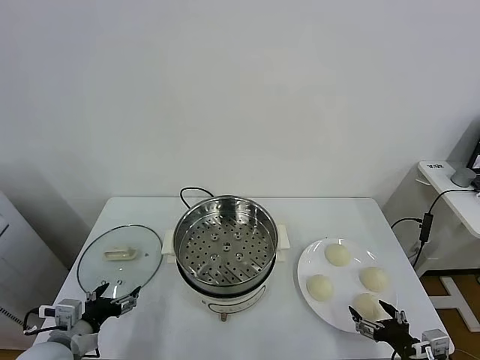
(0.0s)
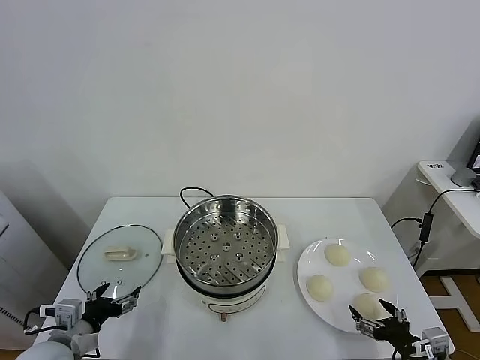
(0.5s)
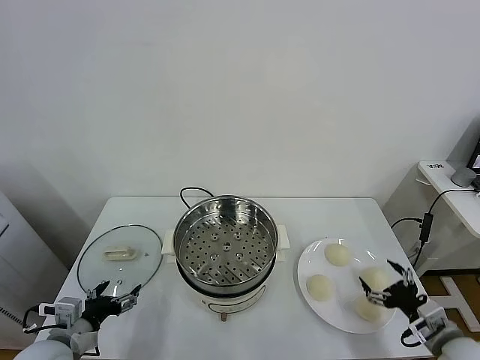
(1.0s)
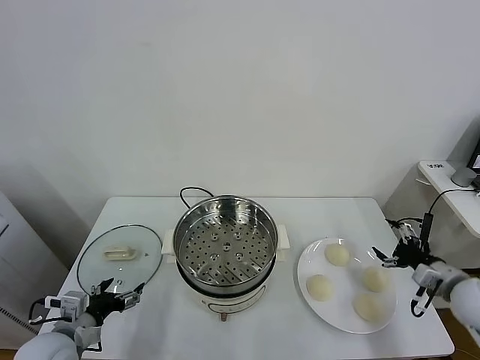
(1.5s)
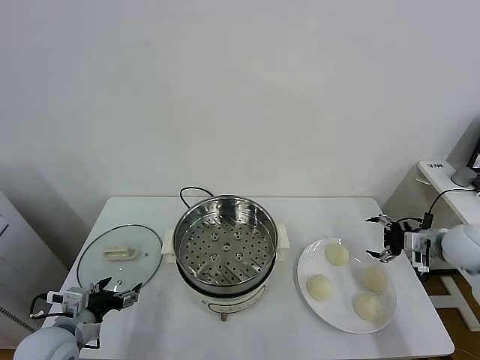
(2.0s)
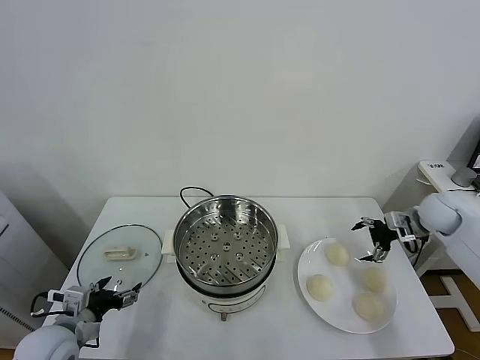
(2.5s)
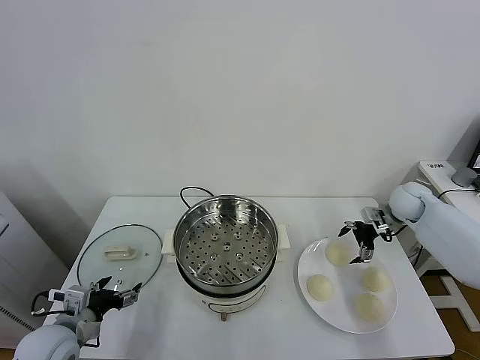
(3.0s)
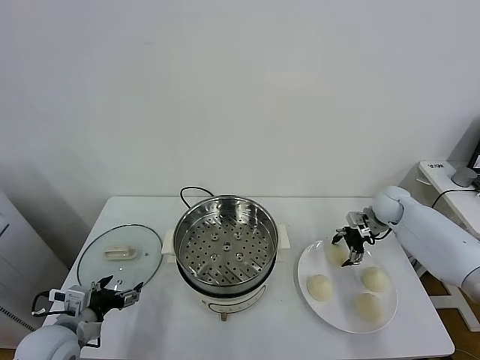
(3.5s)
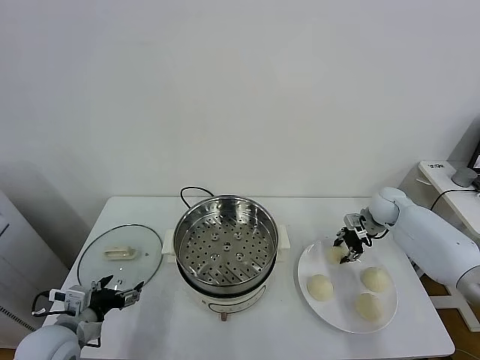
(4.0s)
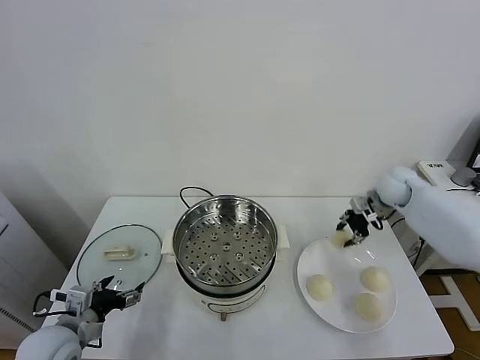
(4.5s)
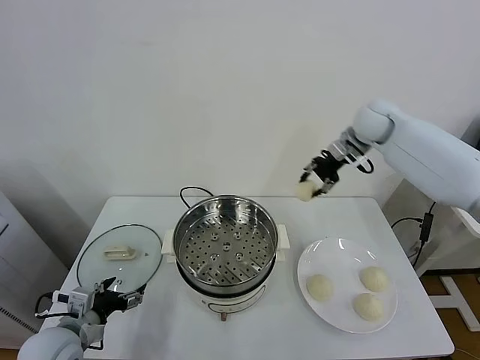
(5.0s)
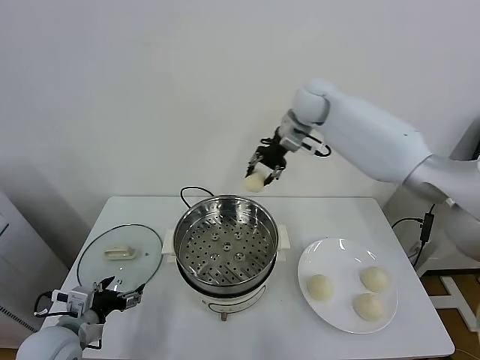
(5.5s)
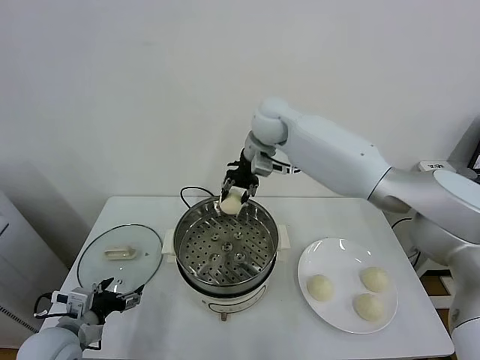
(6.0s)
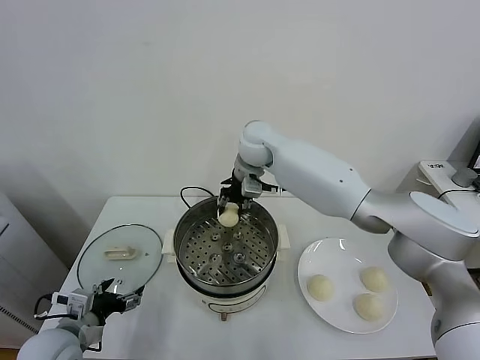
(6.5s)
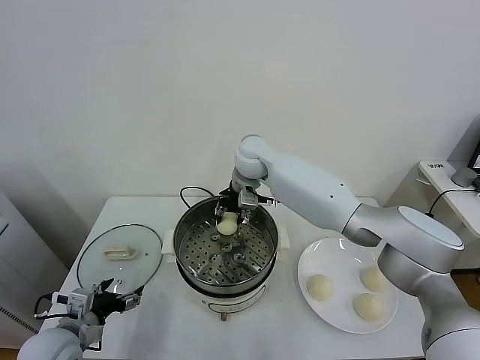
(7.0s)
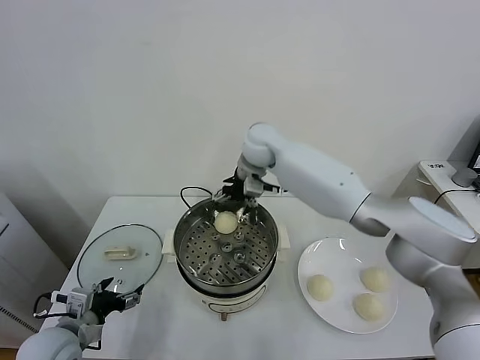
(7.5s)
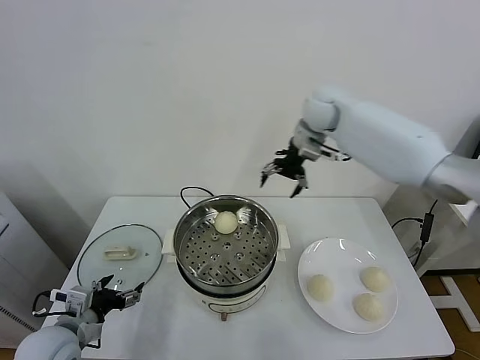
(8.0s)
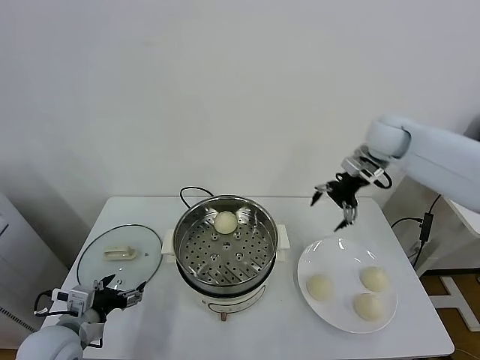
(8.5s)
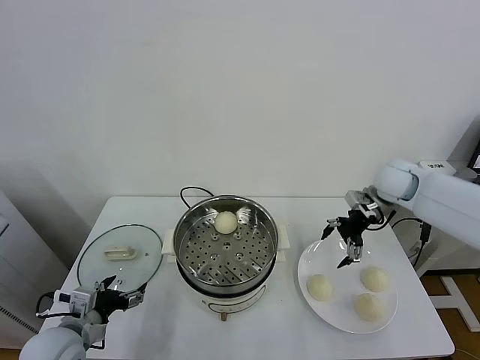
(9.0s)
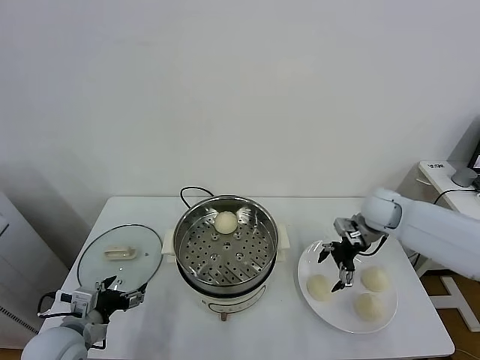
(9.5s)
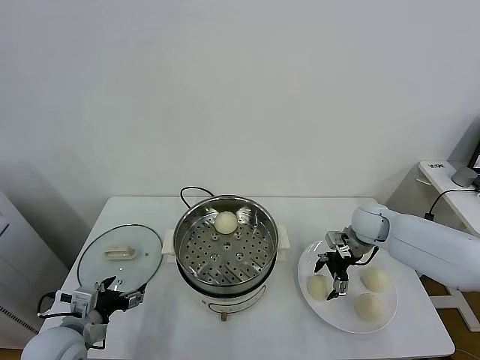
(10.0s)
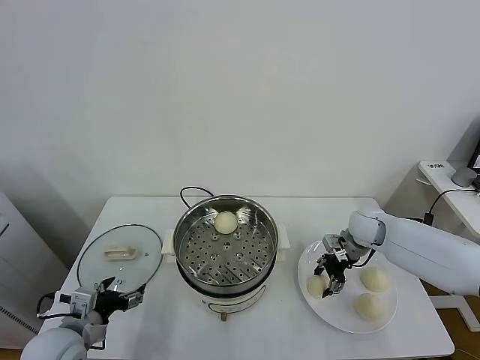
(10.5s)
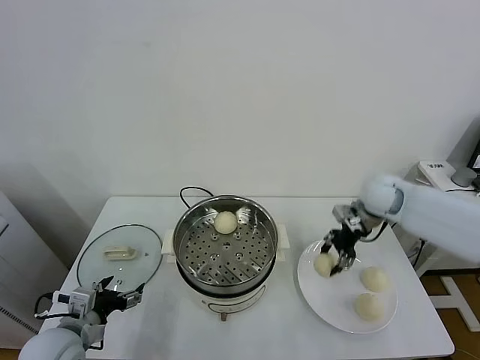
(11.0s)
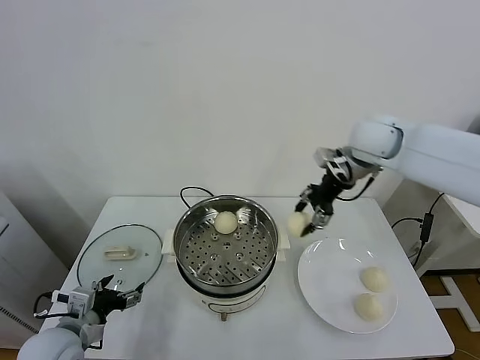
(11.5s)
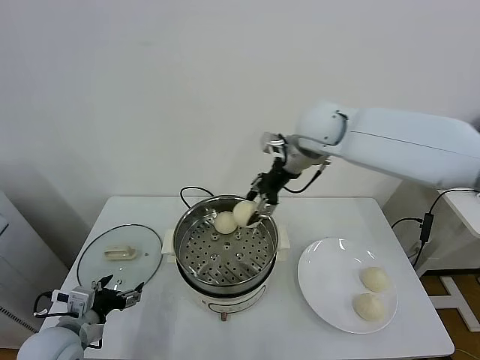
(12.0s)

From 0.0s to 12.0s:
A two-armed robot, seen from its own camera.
Task of the whole recording: take steamed baozi put them in steamer.
Step, from 0.0s to 3.5s: Grasp the baozi in the plate with right gripper.
Step, from 4.0s to 7.5s: Place the baozi on the steamer with right gripper.
Step, from 8.0s to 10.0s: Grasp the baozi in the plate with right gripper.
From 2.0s to 4.0s: The right gripper travels forward and to the left by some 15 cm, and closes.
From 4.0s to 6.0s: The right gripper is displaced to the left and upward by about 40 cm.
From 6.0s to 8.0s: The right gripper shifts roughly 15 cm to the right, and opens up.
From 8.0s to 10.0s: The right gripper shifts approximately 30 cm downward, backward and to the right.
From 10.0s to 12.0s: The right gripper goes approximately 30 cm upward and to the left, and closes up.

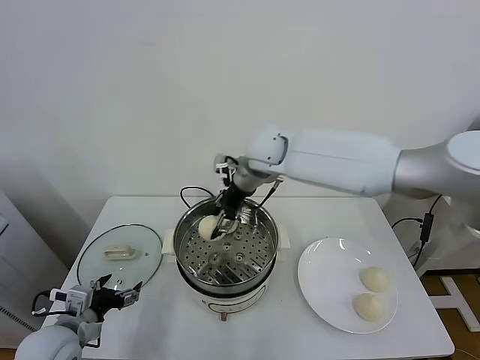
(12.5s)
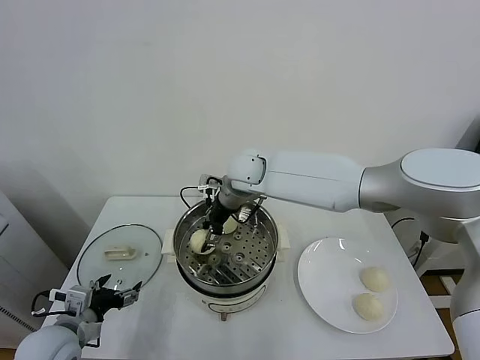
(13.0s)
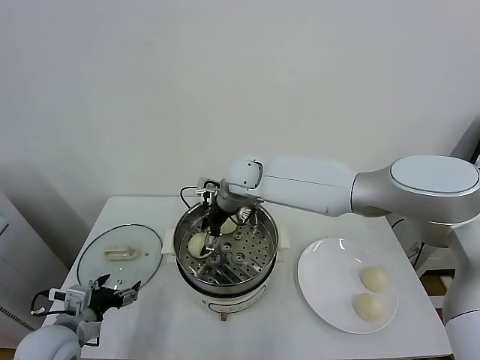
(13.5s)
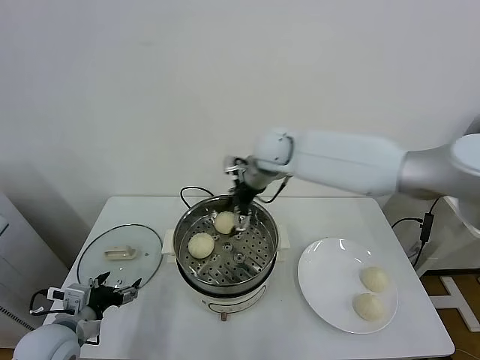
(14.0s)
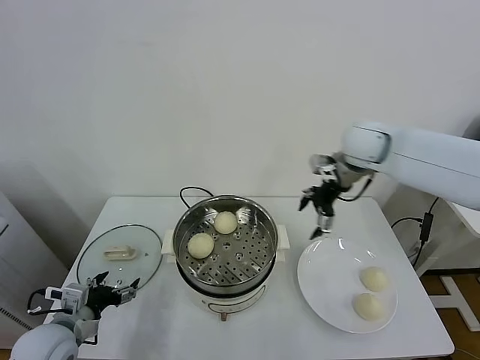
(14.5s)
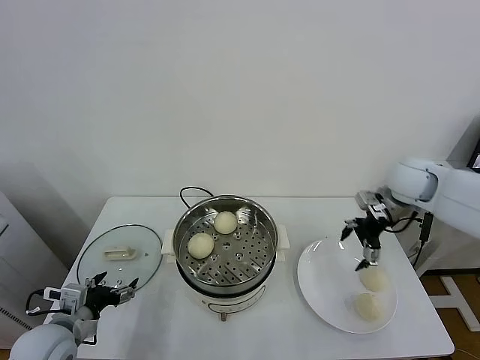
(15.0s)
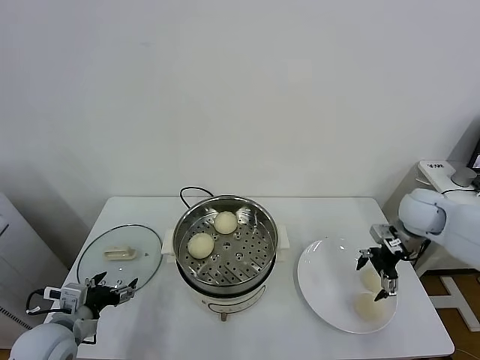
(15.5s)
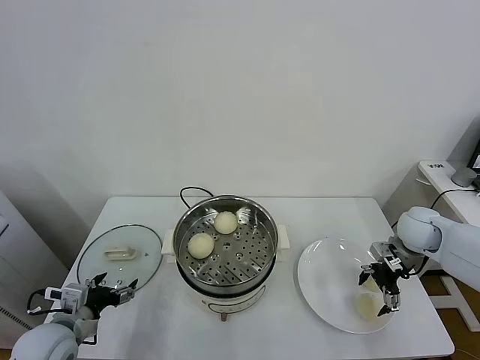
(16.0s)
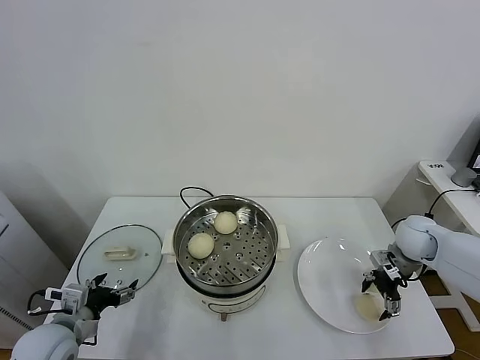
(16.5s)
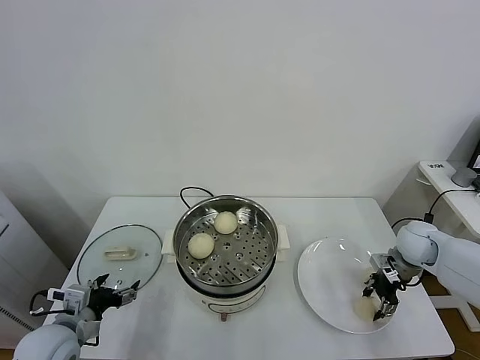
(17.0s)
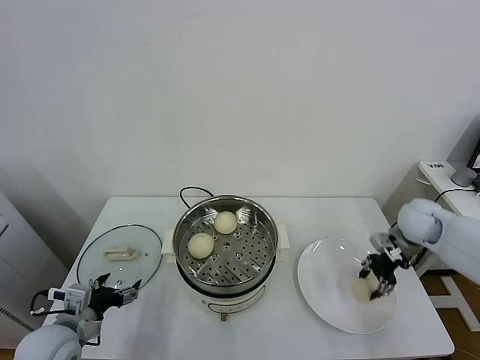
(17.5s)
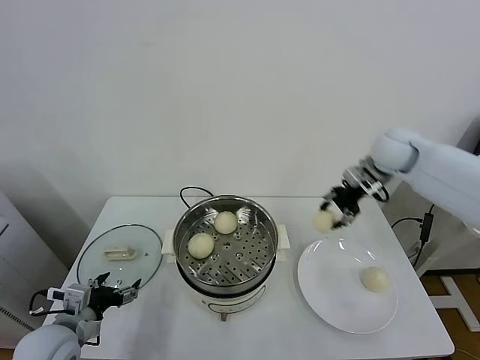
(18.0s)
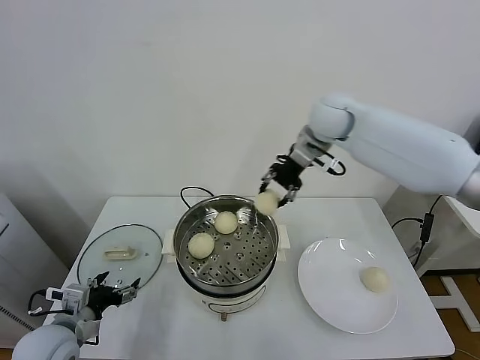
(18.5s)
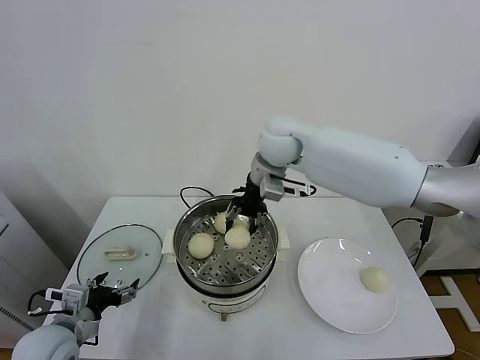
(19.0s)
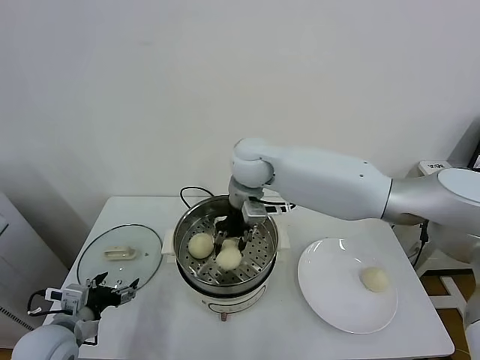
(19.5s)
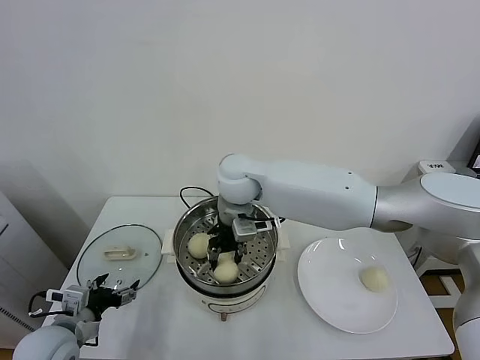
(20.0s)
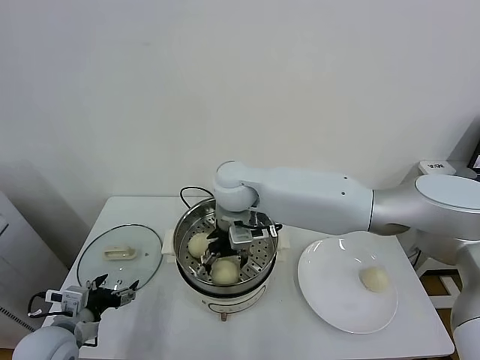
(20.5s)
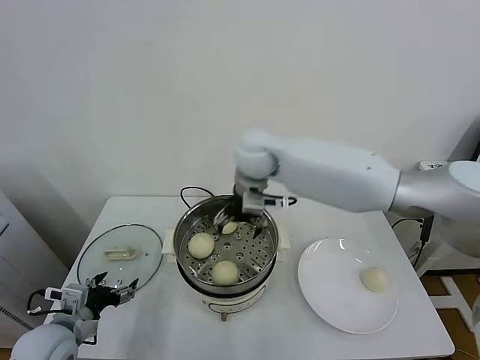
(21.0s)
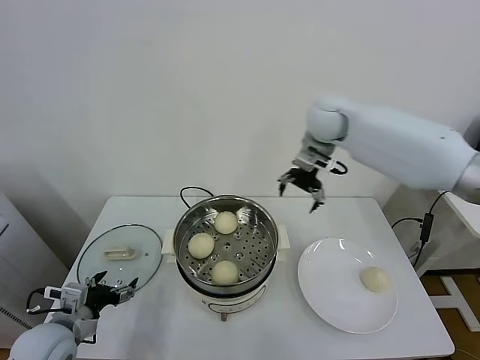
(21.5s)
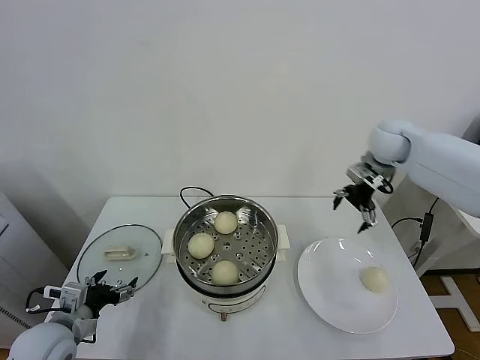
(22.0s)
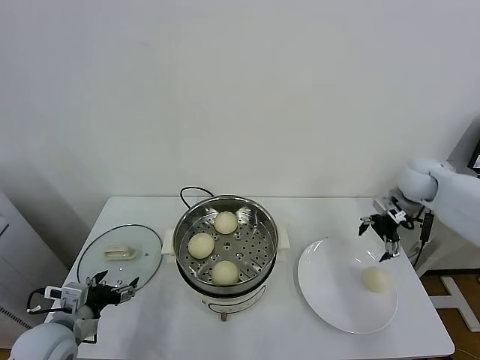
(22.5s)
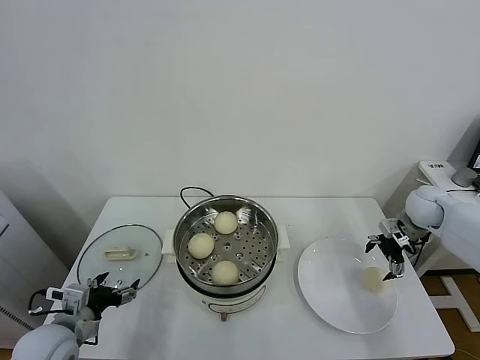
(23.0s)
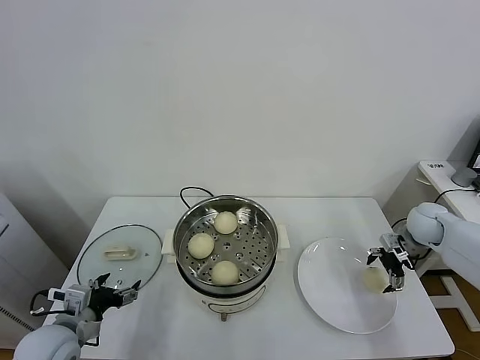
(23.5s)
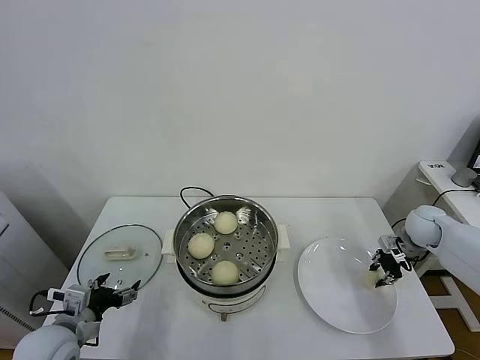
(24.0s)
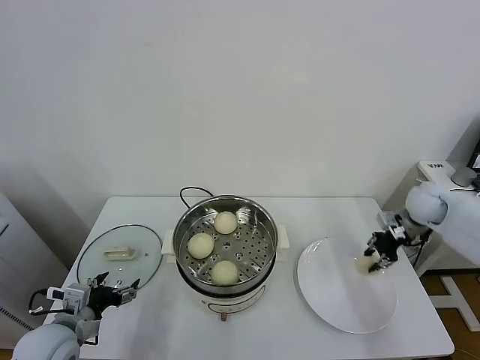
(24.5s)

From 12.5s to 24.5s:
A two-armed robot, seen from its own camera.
Task of the whole recording: take steamed baozi put them in steamer.
Step, from 14.0s to 17.0s: Grasp the baozi in the plate with right gripper.
Step, from 17.5s to 20.5s: Place the baozi on the steamer with right gripper.
Step, from 21.0s to 24.0s: Grasp the baozi in the plate with right gripper.
From 12.5s to 14.5s: The right gripper heads to the right, covering approximately 25 cm, and opens.
From 14.5s to 16.5s: The right gripper heads downward and to the right, covering roughly 25 cm.
From 16.5s to 18.5s: The right gripper moves upward, to the left and forward, approximately 35 cm, and closes.
From 18.5s to 20.5s: The right gripper moves to the left, downward and backward, some 25 cm, and opens up.
From 20.5s to 22.5s: The right gripper shifts about 40 cm to the right.
From 22.5s to 24.5s: The right gripper goes downward and returns, about 10 cm each way, and closes.

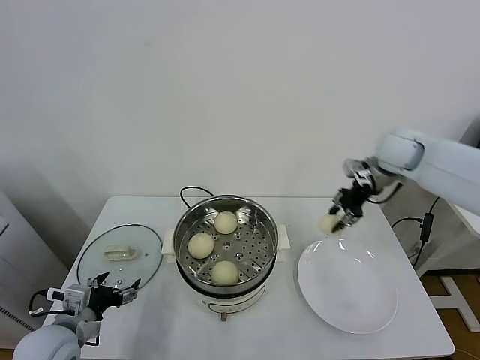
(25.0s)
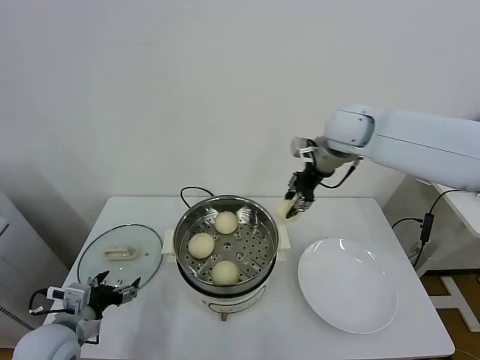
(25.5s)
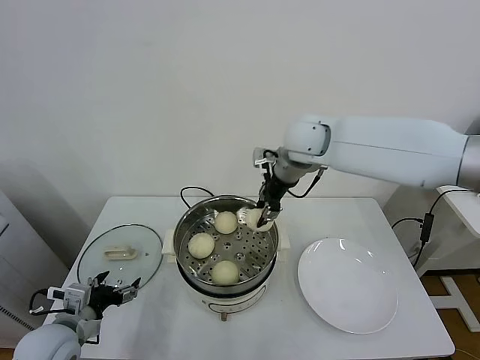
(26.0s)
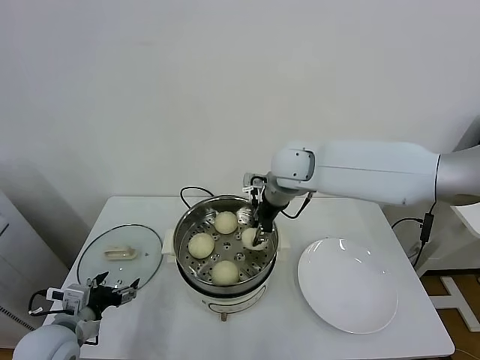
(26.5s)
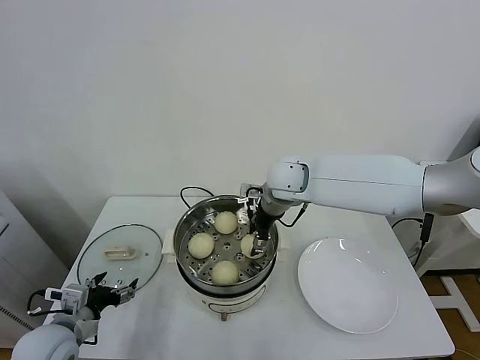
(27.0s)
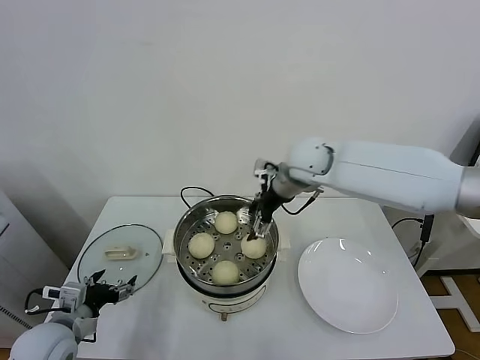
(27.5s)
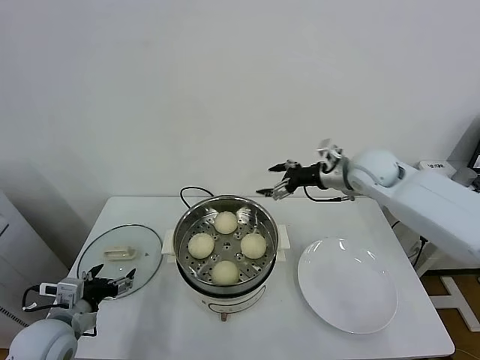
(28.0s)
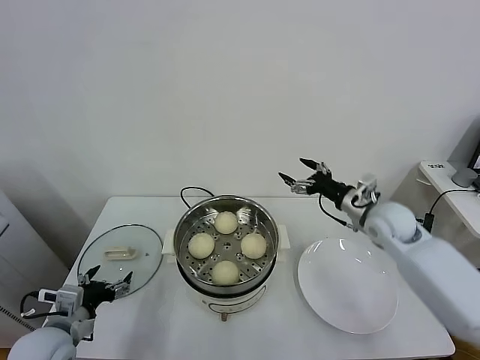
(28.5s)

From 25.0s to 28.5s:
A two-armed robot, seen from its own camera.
Task of the whole recording: take steamed baozi put them in steamer.
Step, from 25.0s to 27.0s: Place the baozi on the steamer with right gripper.
From 25.0s to 27.0s: The right gripper moves to the left, some 25 cm, and opens.
From 27.0s to 28.5s: The right gripper shifts roughly 25 cm to the right, and opens its fingers.
